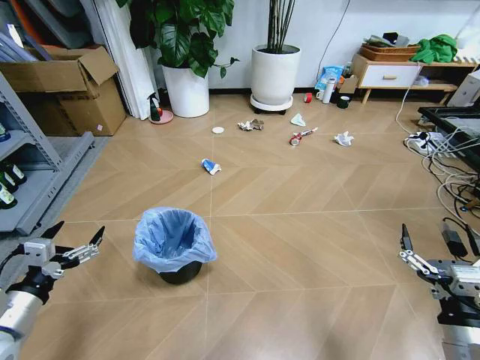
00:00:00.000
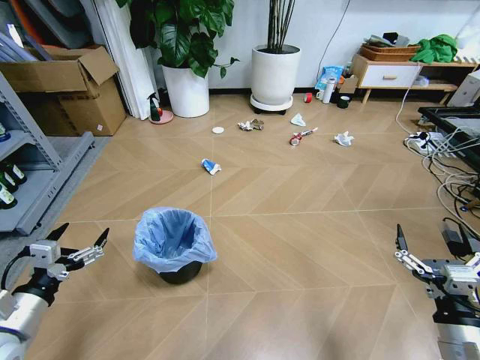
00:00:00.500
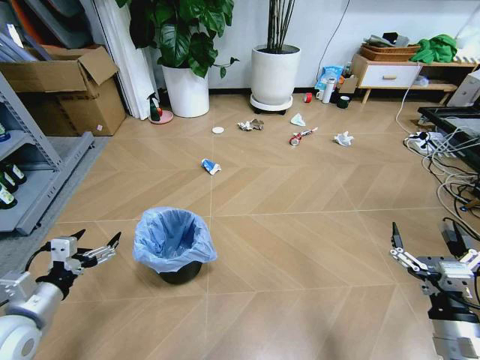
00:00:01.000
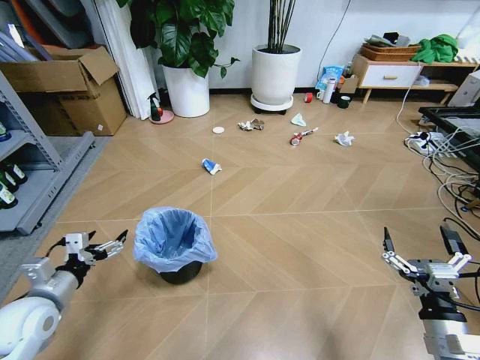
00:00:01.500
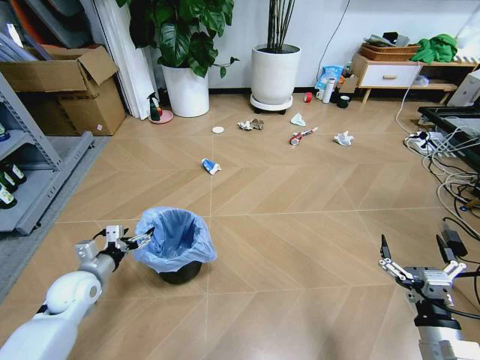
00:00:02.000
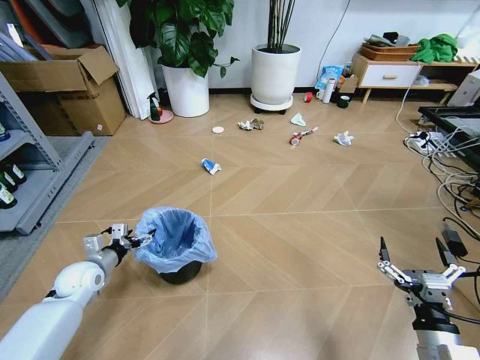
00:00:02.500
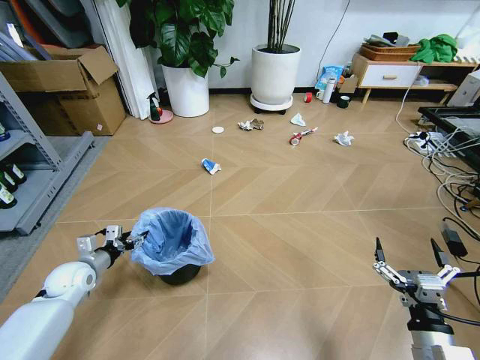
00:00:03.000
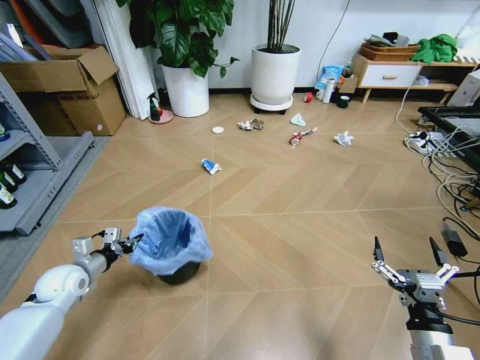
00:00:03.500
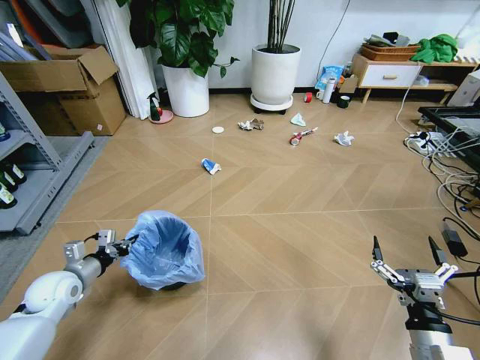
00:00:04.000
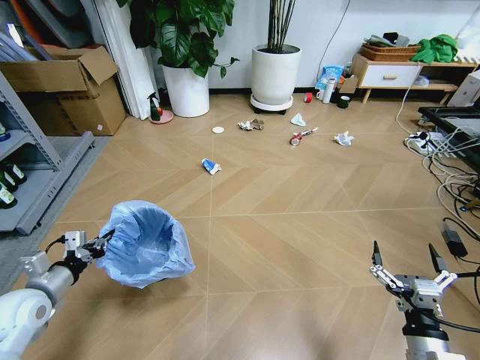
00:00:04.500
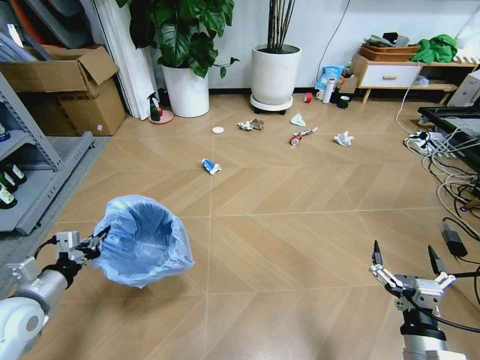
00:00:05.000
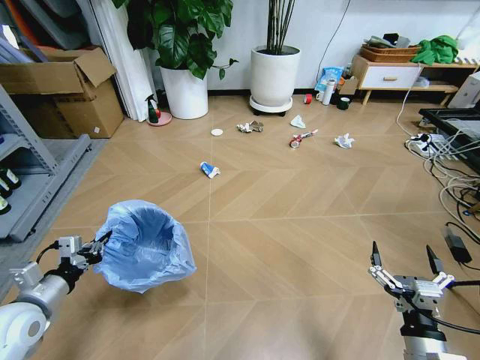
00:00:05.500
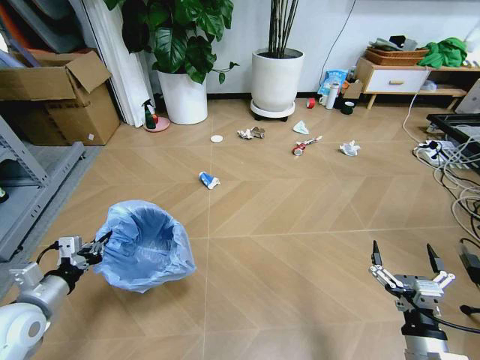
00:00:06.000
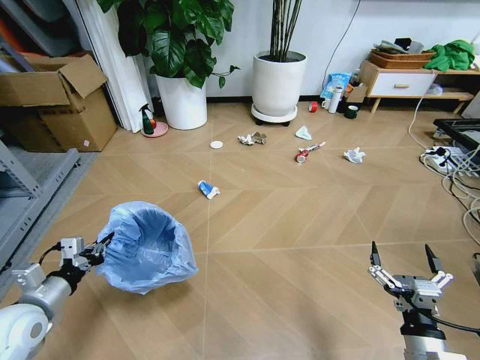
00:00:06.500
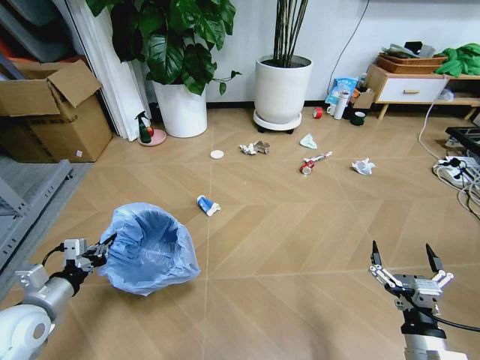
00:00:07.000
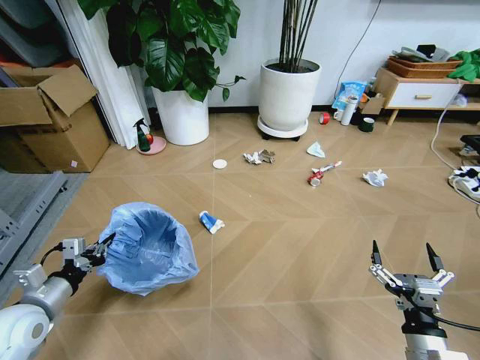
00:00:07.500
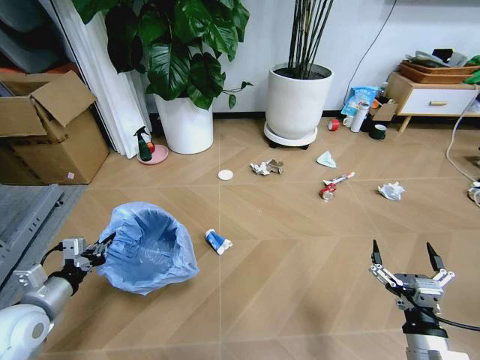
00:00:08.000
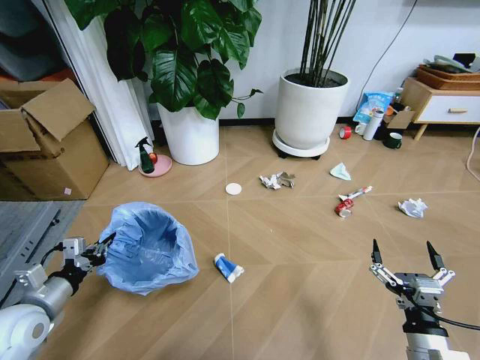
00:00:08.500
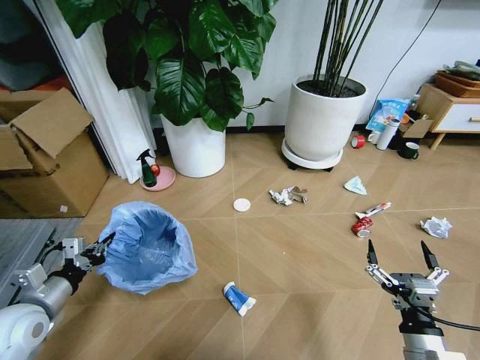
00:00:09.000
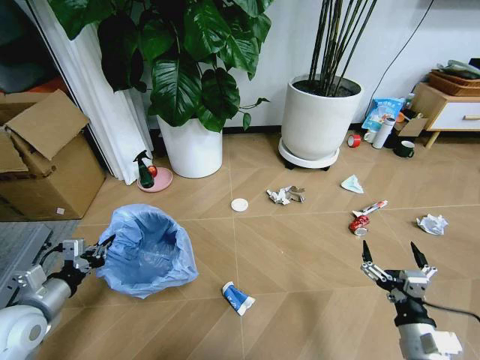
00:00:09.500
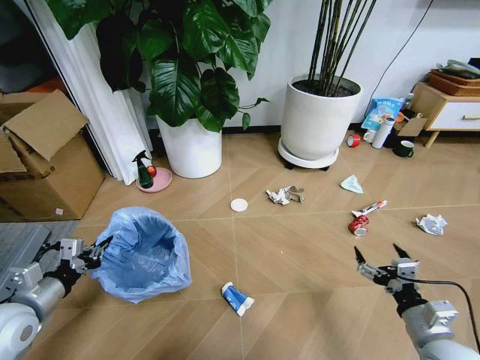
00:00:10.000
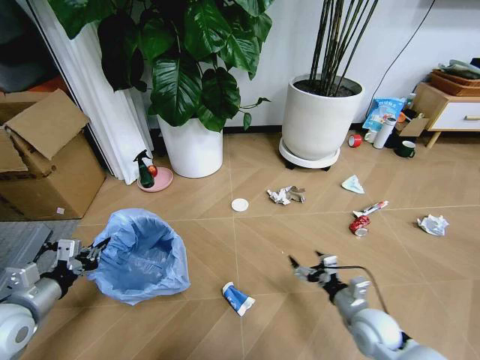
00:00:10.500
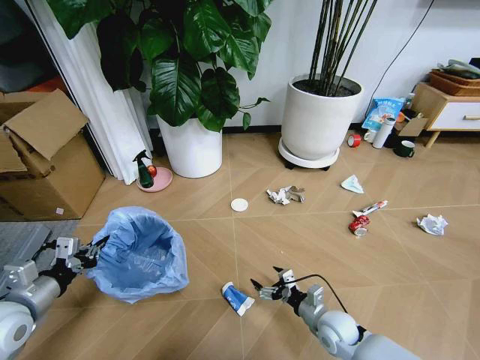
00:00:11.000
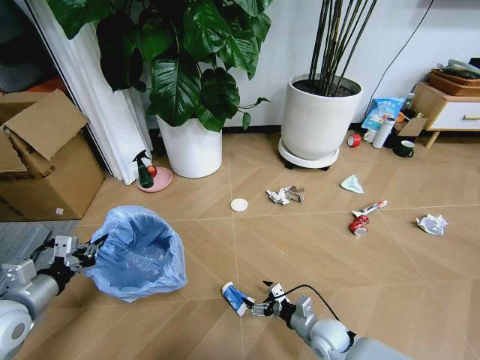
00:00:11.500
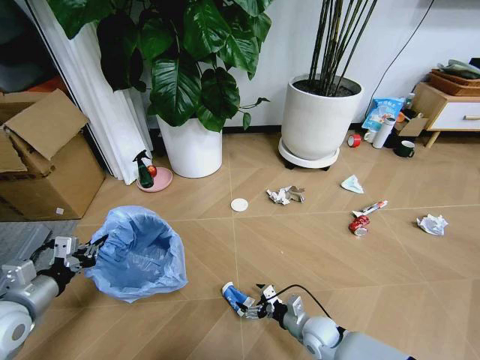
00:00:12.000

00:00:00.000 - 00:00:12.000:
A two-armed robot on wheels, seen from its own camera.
Task of the whole recording: Pick up the trash bin and place the garbage on the floor into it.
00:00:02.000 - 00:00:04.000: The left gripper closes up.
00:00:04.000 - 00:00:06.000: The left gripper moves backward and upward, roughly 10 cm.
00:00:08.000 - 00:00:10.000: The right gripper travels to the right and forward by roughly 5 cm.
00:00:10.000 - 00:00:12.000: The right gripper travels downward, to the left and forward by roughly 25 cm.

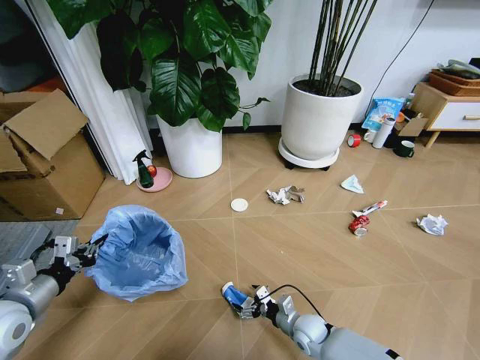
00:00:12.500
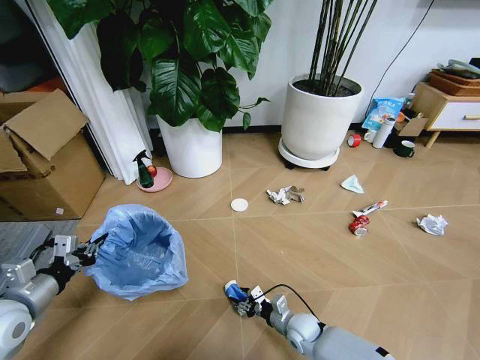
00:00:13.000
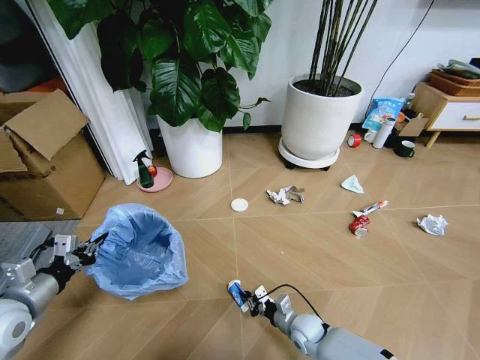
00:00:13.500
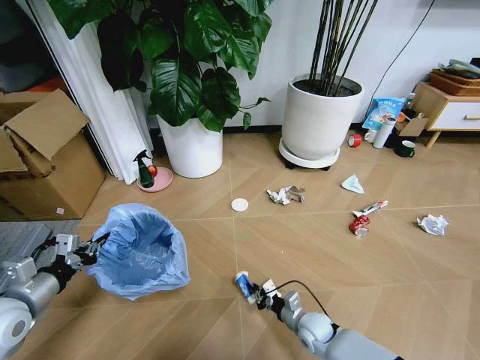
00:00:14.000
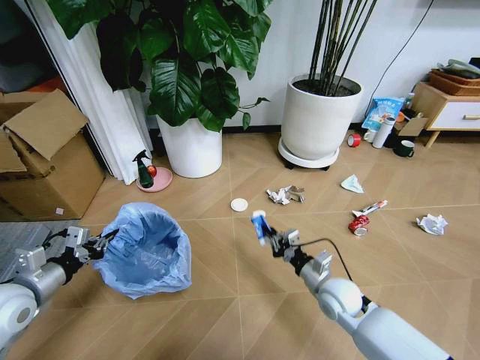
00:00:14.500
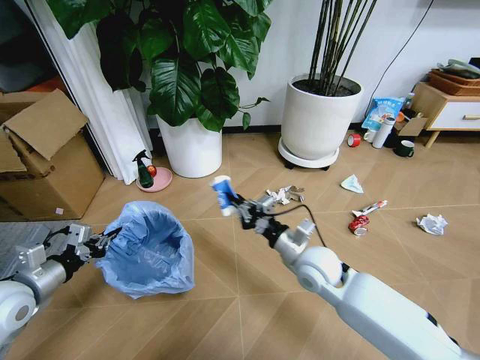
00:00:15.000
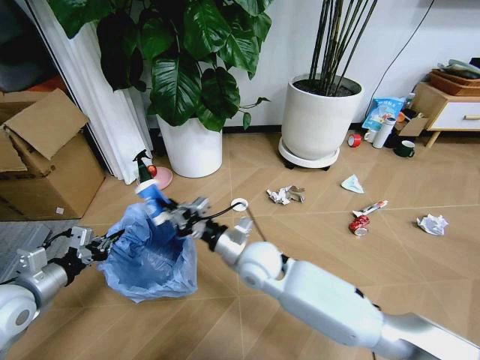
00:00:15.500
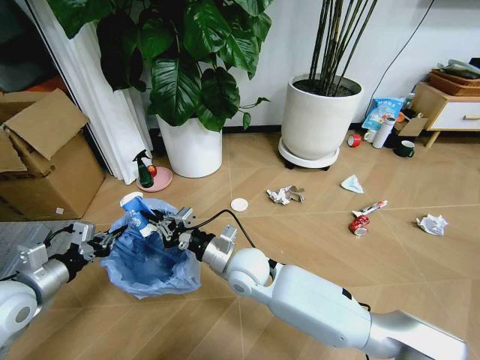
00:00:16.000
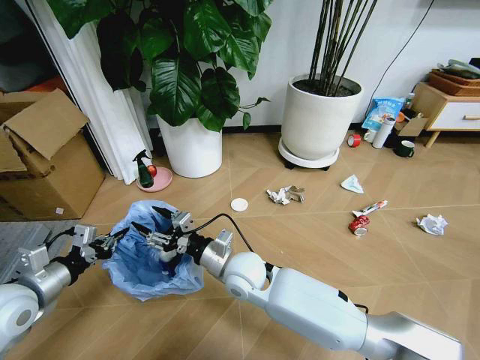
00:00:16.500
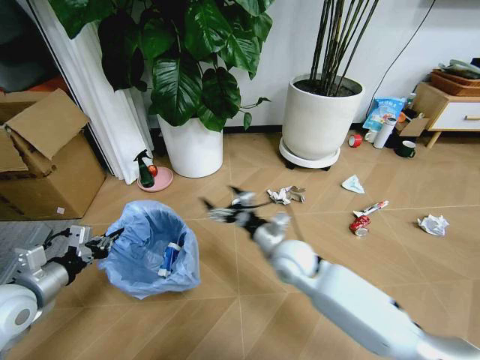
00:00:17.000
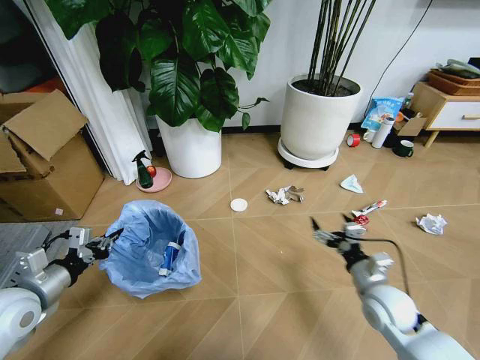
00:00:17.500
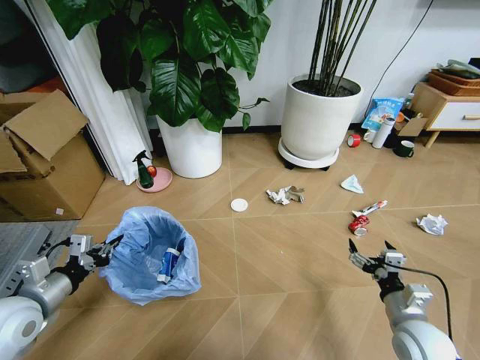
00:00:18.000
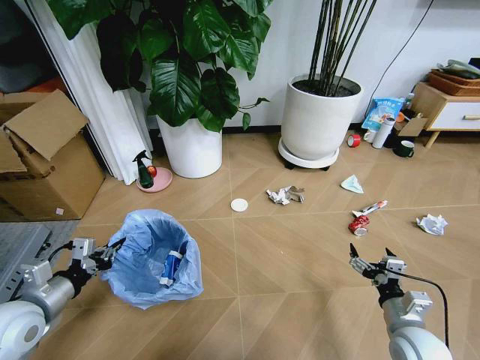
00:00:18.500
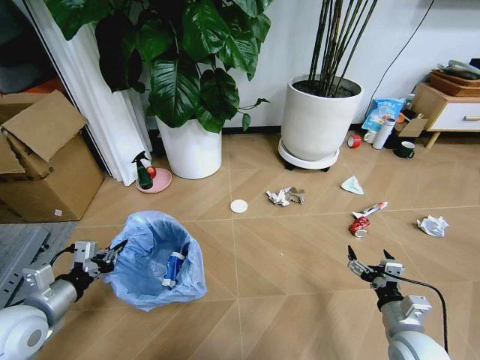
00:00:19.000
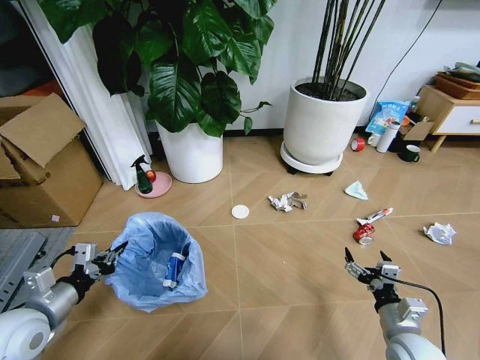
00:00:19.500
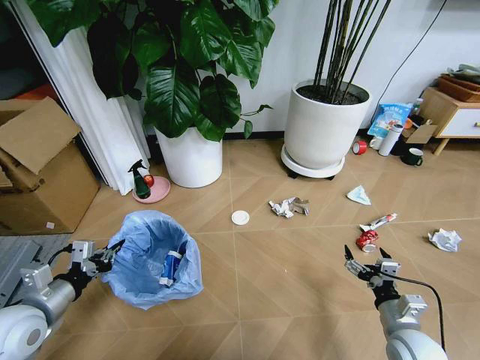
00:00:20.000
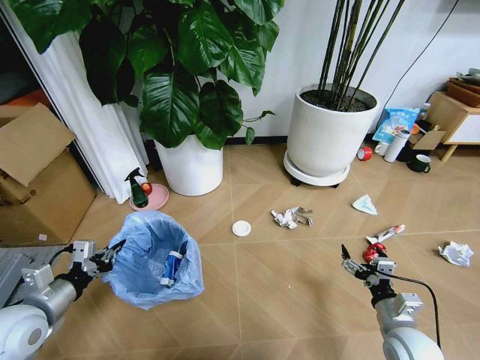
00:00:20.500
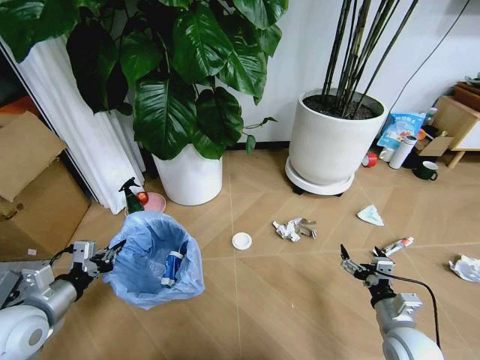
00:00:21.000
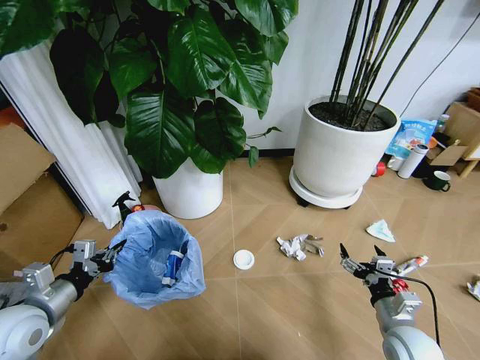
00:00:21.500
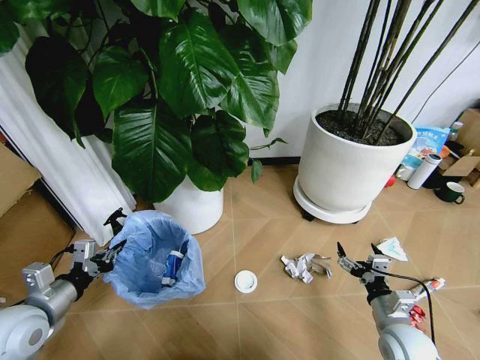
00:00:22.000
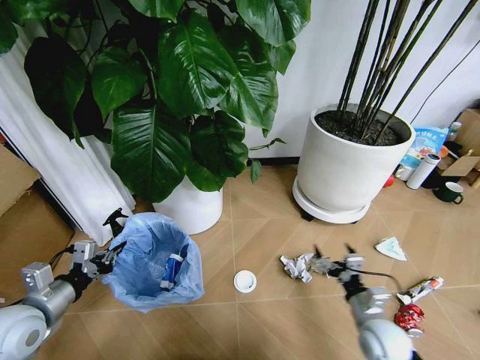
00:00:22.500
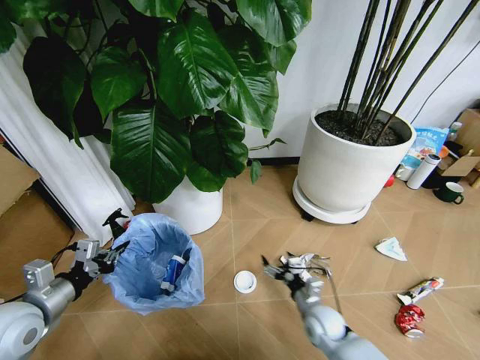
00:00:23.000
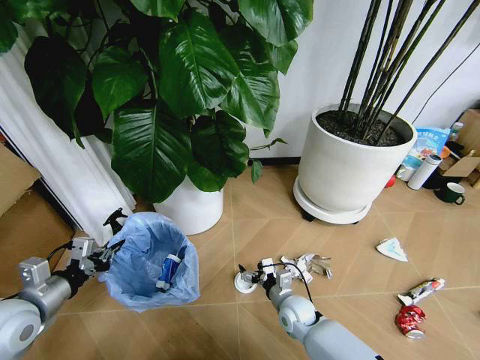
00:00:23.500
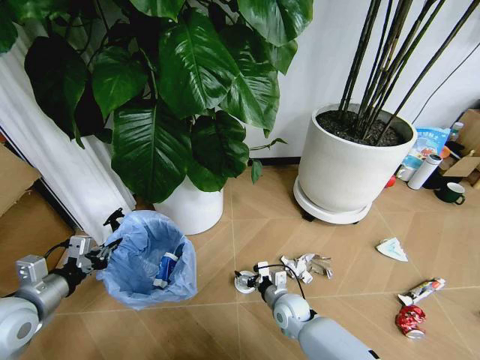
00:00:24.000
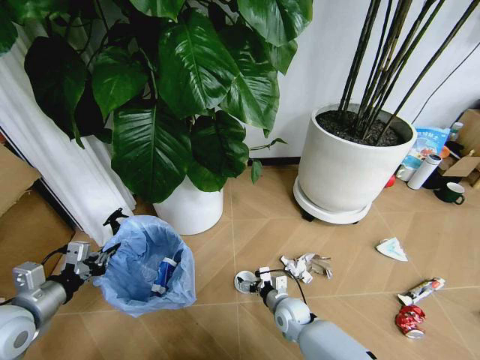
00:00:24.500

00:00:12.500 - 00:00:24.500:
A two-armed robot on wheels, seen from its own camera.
Task of the whole recording: Pick up the trash bin and place the garbage on the floor into it.
00:00:12.500 - 00:00:14.500: The right gripper travels upward by roughly 15 cm, and closes.
00:00:14.500 - 00:00:16.500: The right gripper is displaced to the left and upward by some 25 cm, and opens up.
00:00:16.500 - 00:00:18.500: The right gripper goes roughly 40 cm to the right and backward, and opens up.
00:00:22.500 - 00:00:24.500: The right gripper heads to the left, downward and forward, covering about 25 cm.

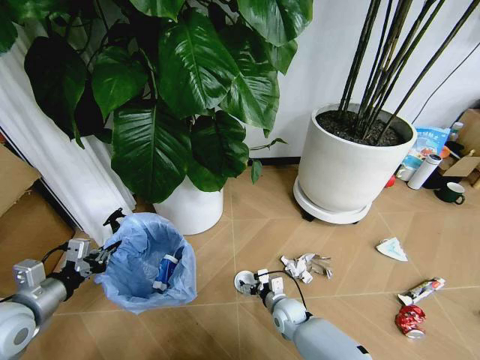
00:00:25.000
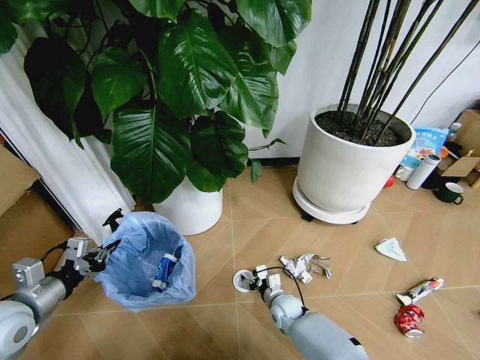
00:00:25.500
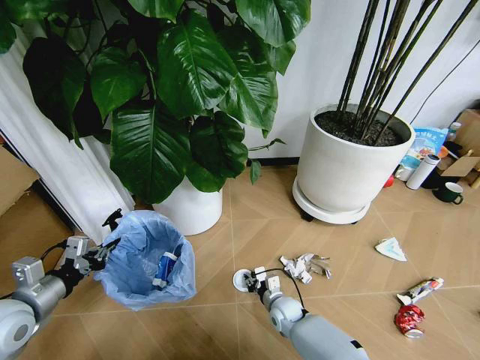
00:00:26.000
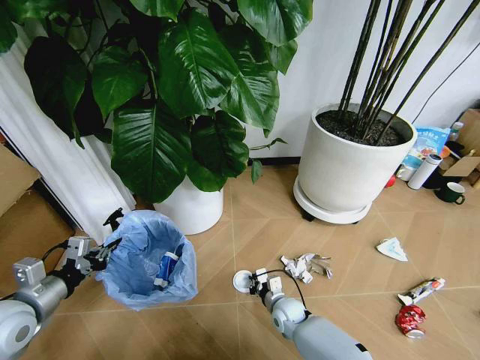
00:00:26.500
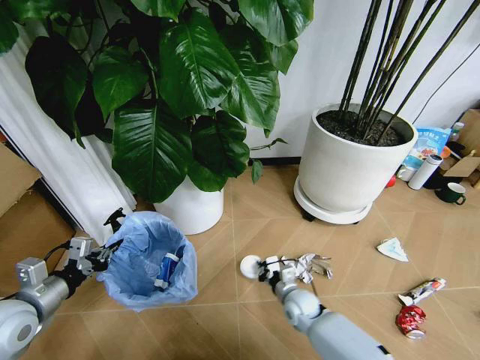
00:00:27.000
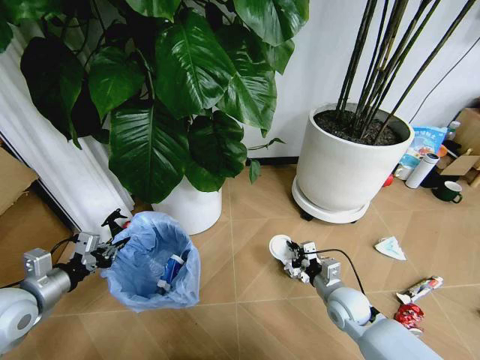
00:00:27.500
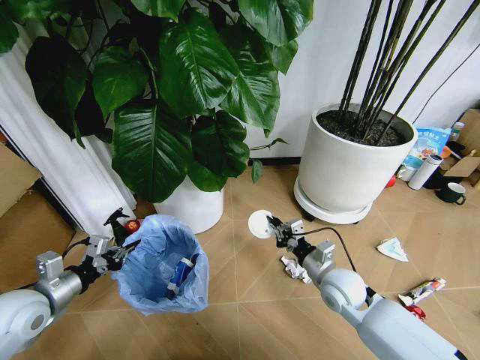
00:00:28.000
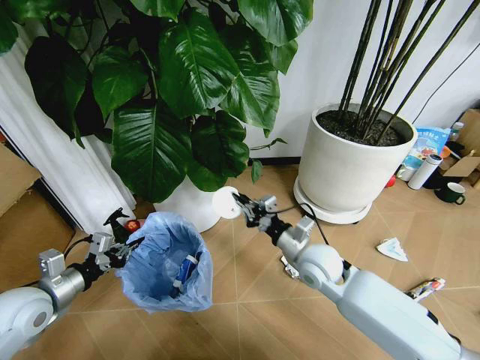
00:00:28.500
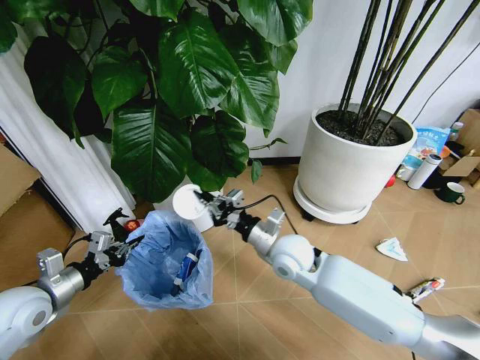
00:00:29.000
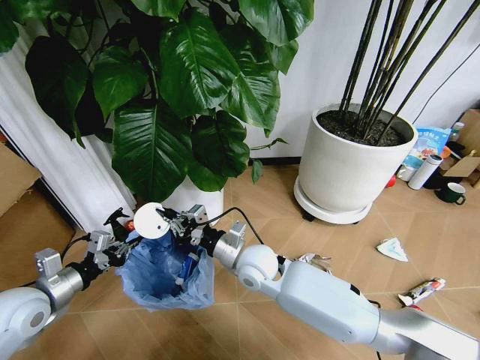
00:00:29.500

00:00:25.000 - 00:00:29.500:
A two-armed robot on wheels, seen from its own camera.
Task of the whole recording: Pick up the trash bin and place the garbage on the floor into it.
00:00:25.000 - 00:00:27.000: The right gripper closes up.
00:00:27.000 - 00:00:29.500: The right gripper is displaced upward and to the left by approximately 25 cm.
